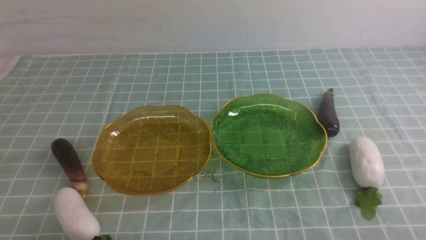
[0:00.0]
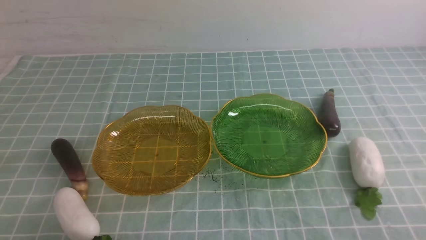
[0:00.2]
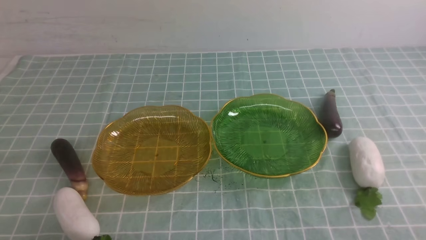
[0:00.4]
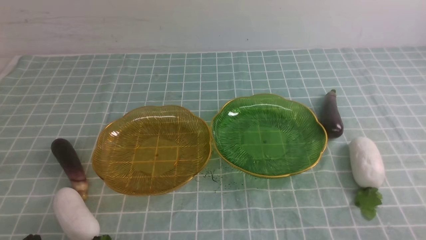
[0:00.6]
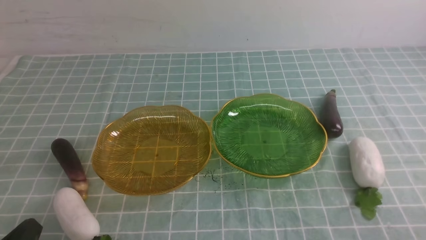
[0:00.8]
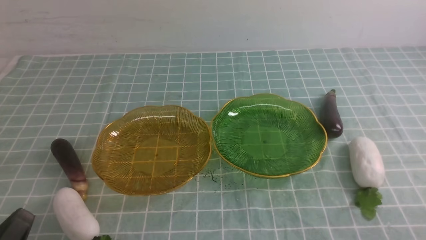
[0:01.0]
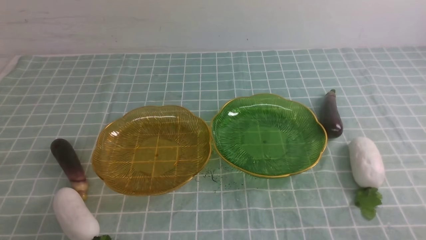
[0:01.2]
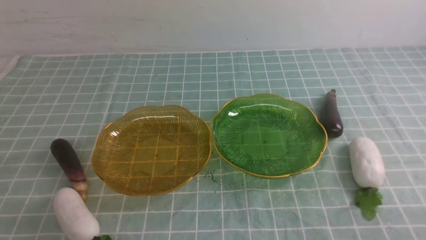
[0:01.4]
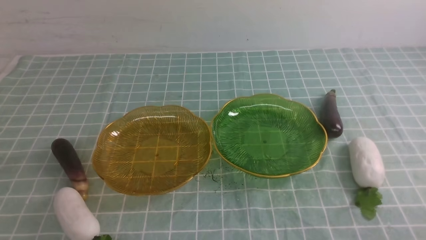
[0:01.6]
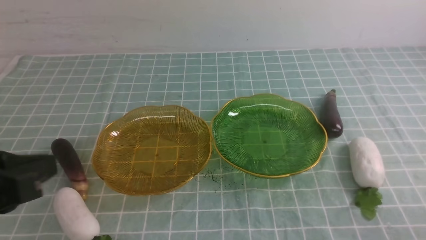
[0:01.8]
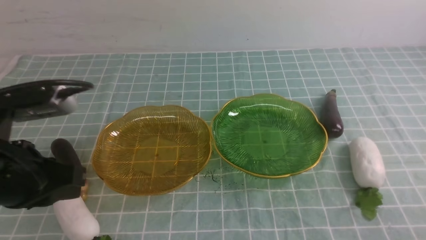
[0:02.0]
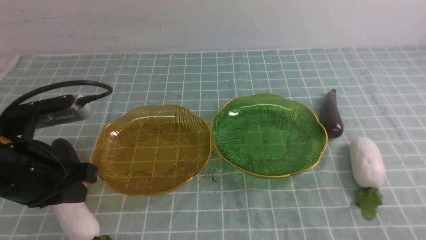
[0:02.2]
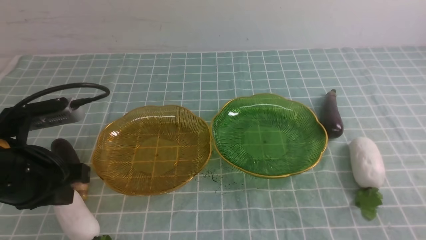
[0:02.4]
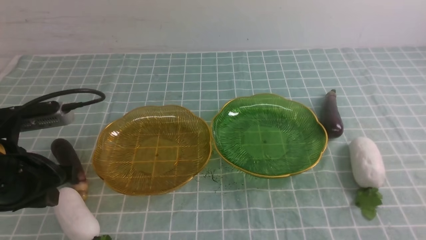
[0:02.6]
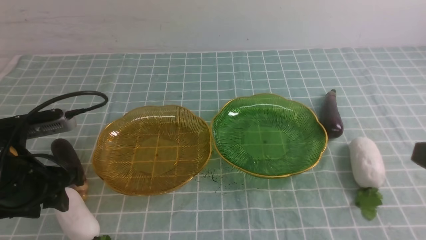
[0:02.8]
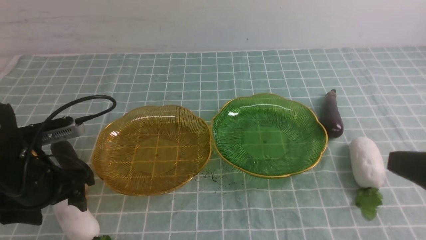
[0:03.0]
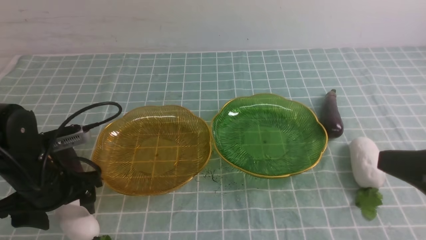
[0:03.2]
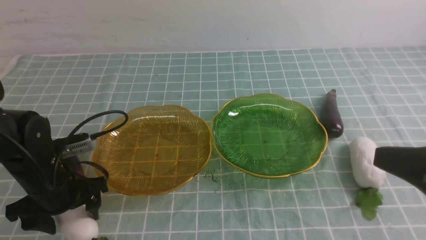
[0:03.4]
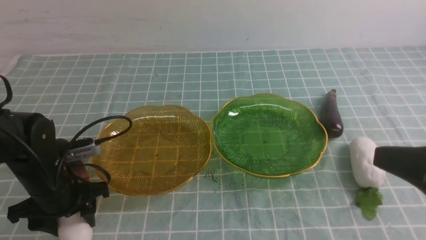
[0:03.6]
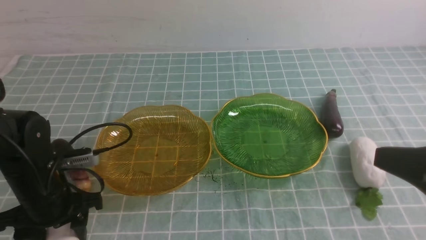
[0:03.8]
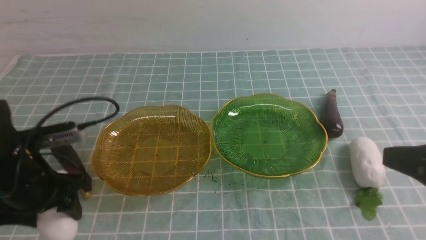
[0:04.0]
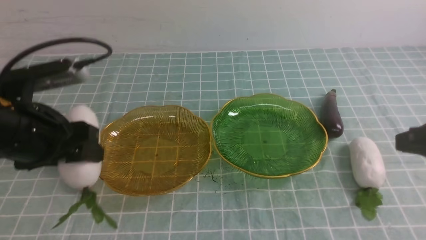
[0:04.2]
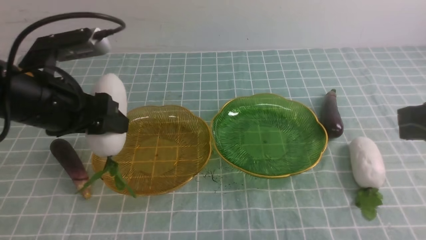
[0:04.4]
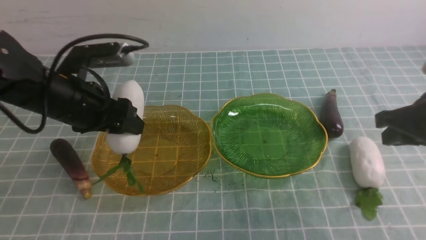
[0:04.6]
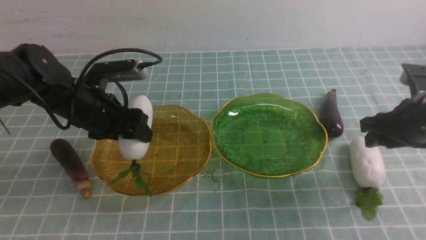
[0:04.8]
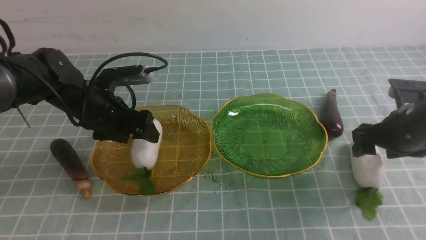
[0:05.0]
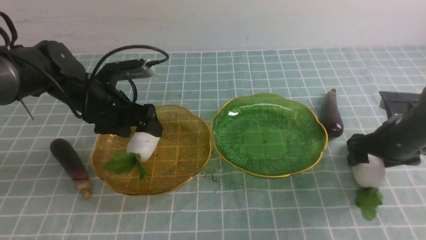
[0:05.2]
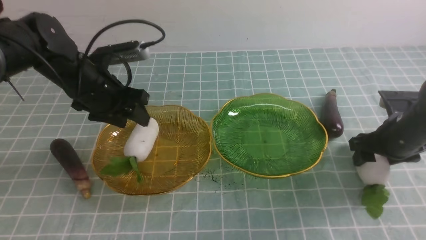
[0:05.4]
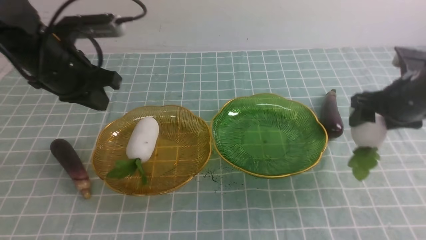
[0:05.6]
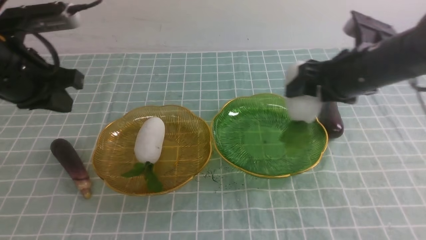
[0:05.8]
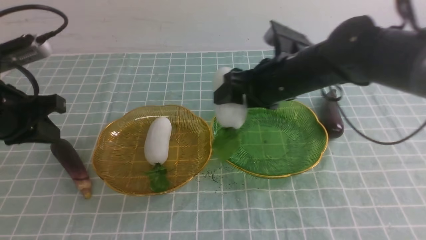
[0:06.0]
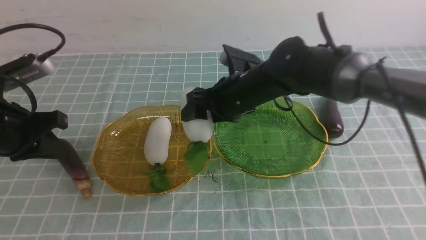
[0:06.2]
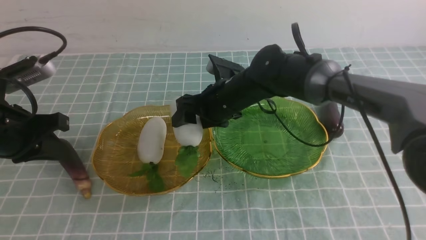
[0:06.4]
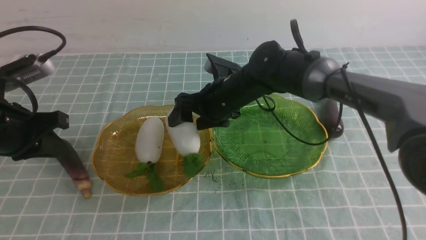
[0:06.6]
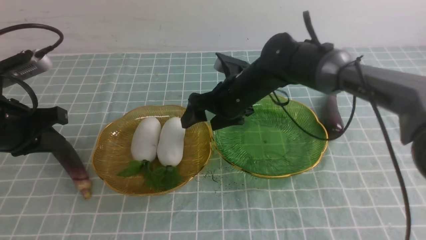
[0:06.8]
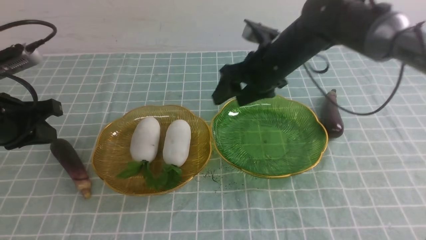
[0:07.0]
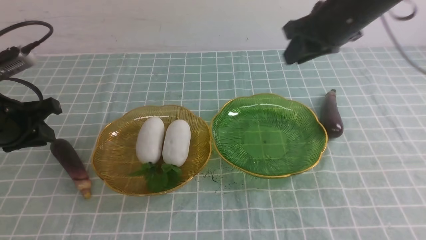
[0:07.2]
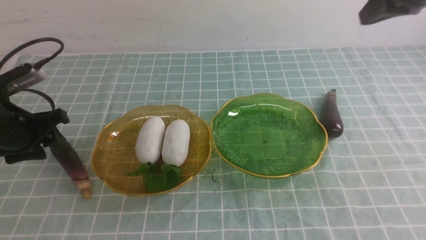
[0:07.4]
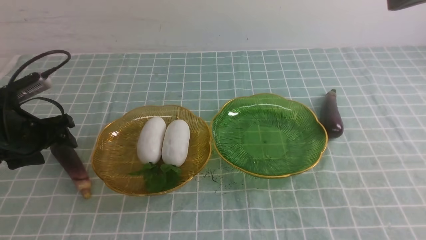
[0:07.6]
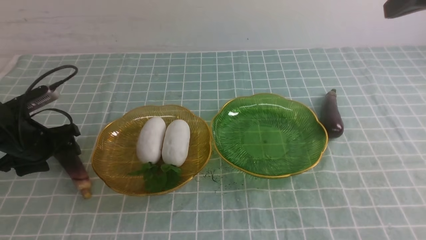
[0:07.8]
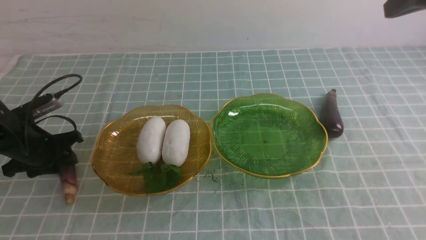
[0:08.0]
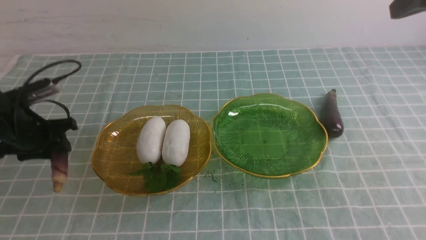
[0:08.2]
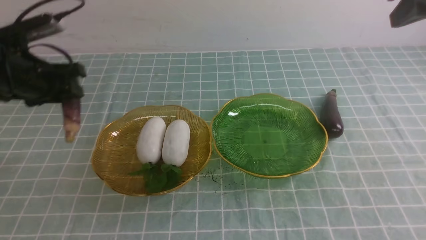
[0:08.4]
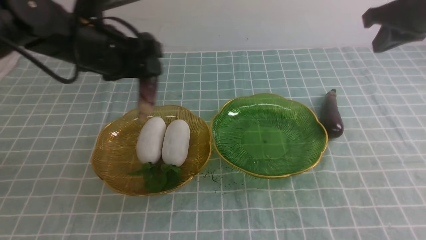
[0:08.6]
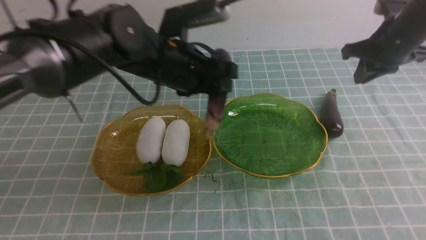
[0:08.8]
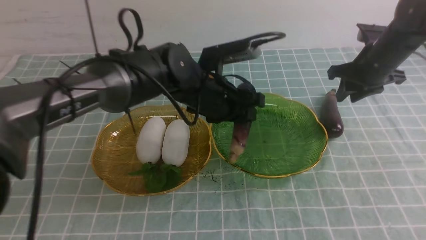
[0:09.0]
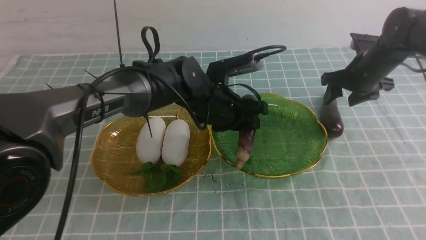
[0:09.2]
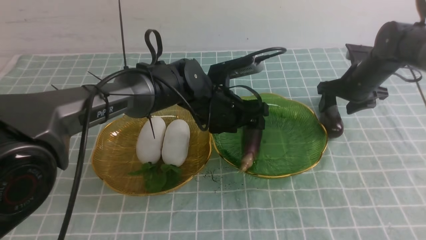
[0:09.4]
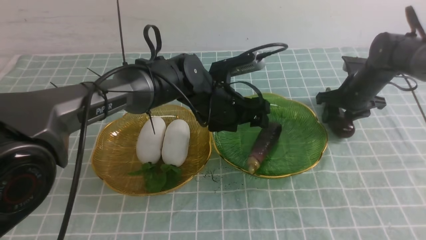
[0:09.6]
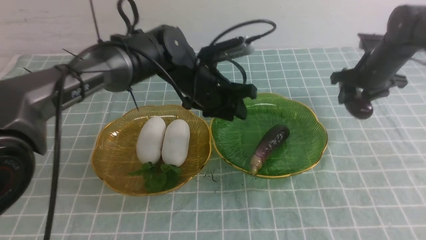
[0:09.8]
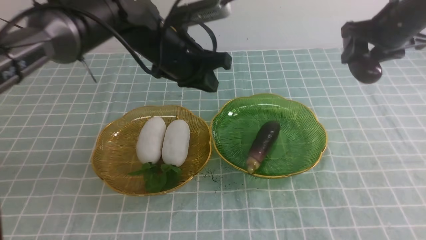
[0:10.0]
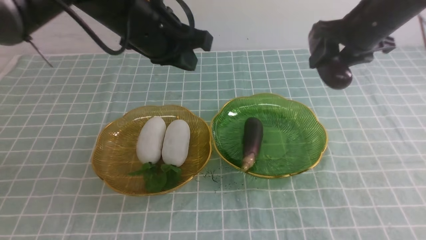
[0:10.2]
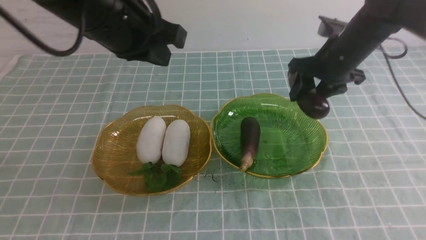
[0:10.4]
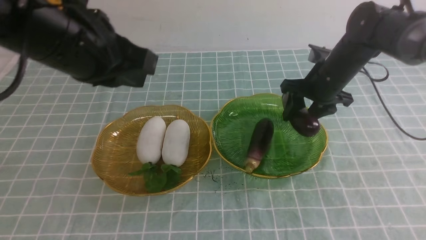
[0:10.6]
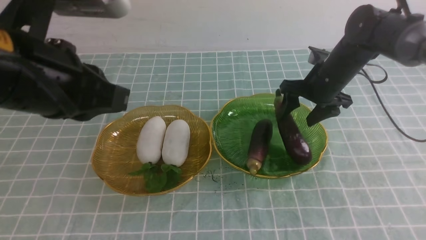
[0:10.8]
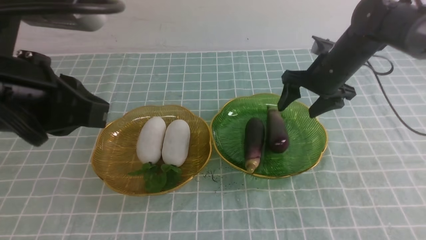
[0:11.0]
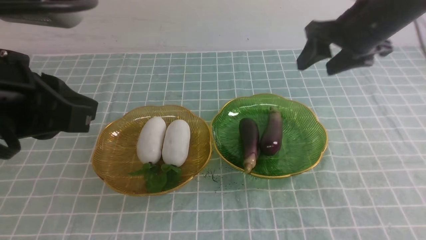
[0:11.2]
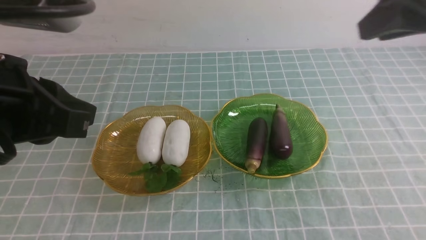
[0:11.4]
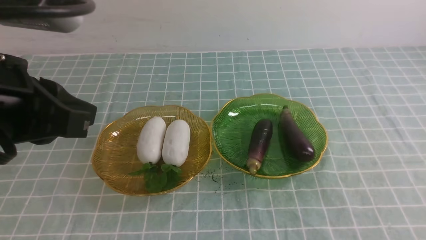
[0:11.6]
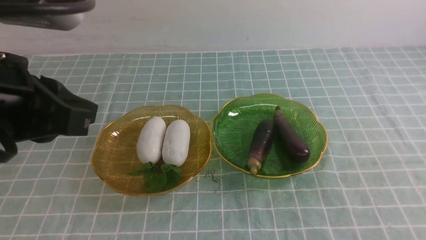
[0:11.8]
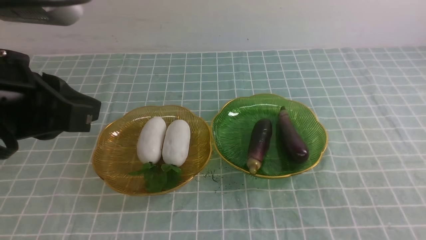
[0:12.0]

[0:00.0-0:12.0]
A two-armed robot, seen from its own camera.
Step, 0:00.0 to 0:04.8: use the left arm to grab a radish and put it into the left plate.
Step, 0:05.0 to 0:06.6: use the right arm to grab a radish and put it into the left plate.
Step, 0:06.8 to 0:09.2: use the left arm to grab an eggplant and put it into the right plate.
Step, 0:09.4 to 0:10.8: use the right arm to grab an eggplant and put it into the right plate.
0:01.6 to 0:03.0: The right gripper is displaced upward and forward by some 15 cm. Meanwhile the left gripper is displaced forward and downward by roughly 20 cm, and opens.
0:03.0 to 0:04.4: The left gripper travels upward by about 10 cm, while the right gripper moves forward, roughly 10 cm.
0:04.4 to 0:06.0: The right gripper heads to the left and forward, covering approximately 25 cm, and opens up. The left gripper is displaced to the left by approximately 5 cm, travels downward and back again, about 10 cm each way, and closes its fingers.
0:06.0 to 0:07.6: The left gripper heads downward and forward, covering approximately 10 cm, and opens; the right gripper travels to the right and upward by approximately 25 cm, and closes its fingers.
0:07.6 to 0:09.0: The left gripper is displaced to the right by approximately 30 cm, and closes. Meanwhile the right gripper goes some 25 cm downward and forward, and opens.
0:09.0 to 0:10.4: The right gripper moves up and down over about 15 cm, changing direction 2 times. Meanwhile the left gripper is displaced upward, to the left and backward by about 20 cm, and closes.
0:10.4 to 0:12.0: The right gripper shifts about 40 cm backward, and closes, while the left gripper shifts approximately 15 cm backward and to the left.

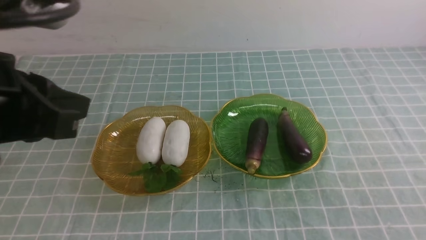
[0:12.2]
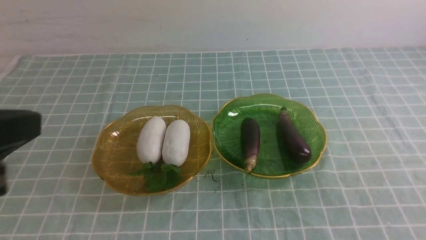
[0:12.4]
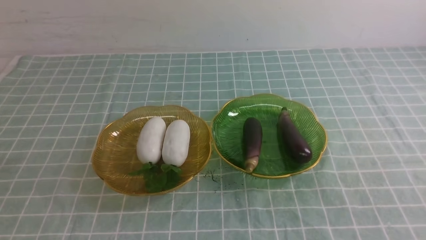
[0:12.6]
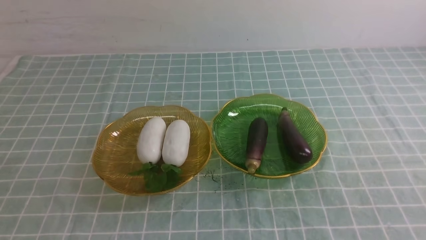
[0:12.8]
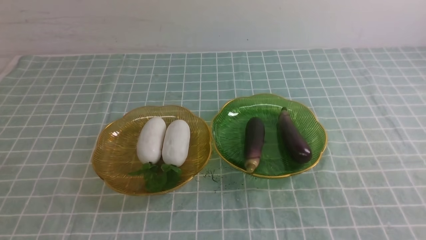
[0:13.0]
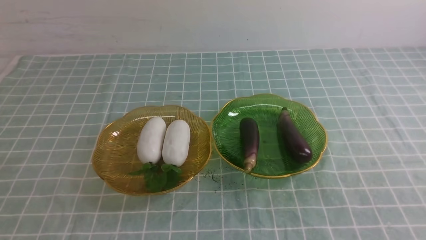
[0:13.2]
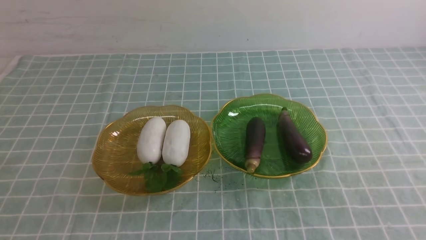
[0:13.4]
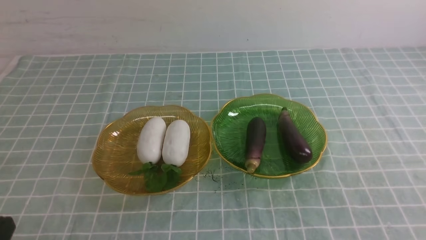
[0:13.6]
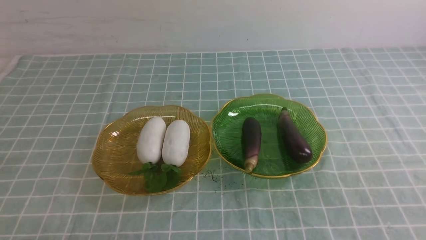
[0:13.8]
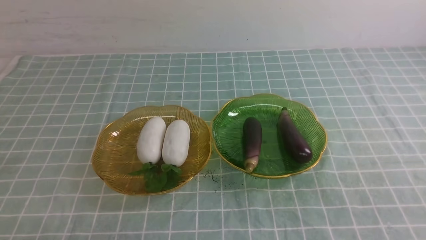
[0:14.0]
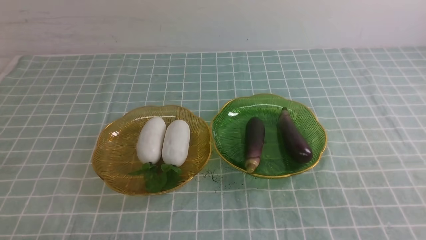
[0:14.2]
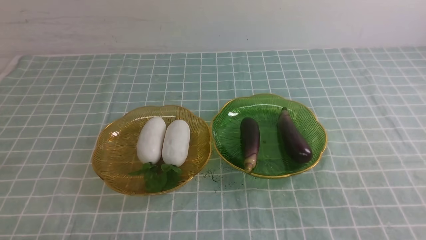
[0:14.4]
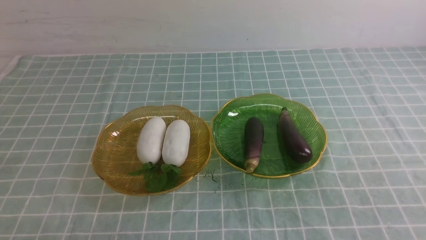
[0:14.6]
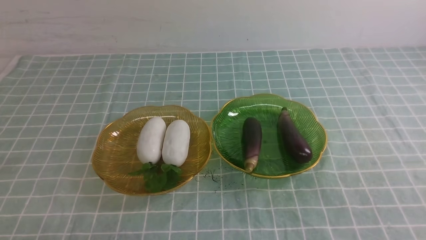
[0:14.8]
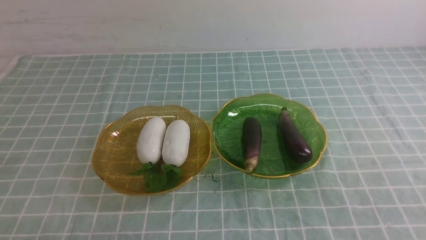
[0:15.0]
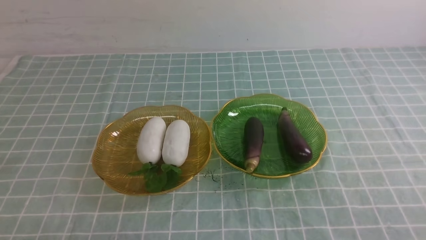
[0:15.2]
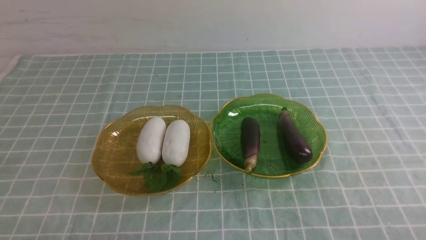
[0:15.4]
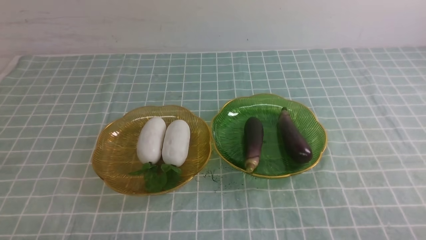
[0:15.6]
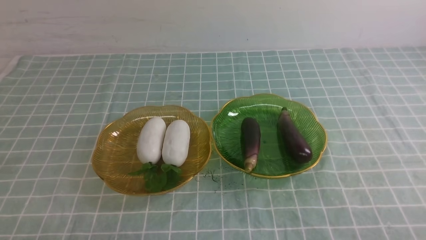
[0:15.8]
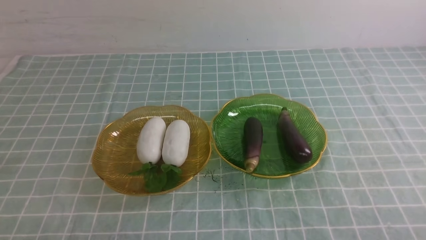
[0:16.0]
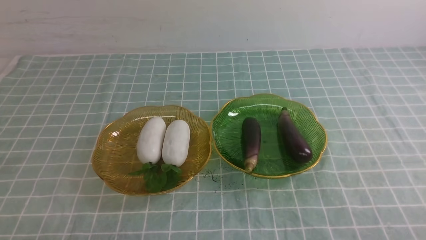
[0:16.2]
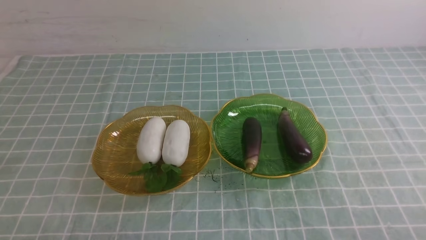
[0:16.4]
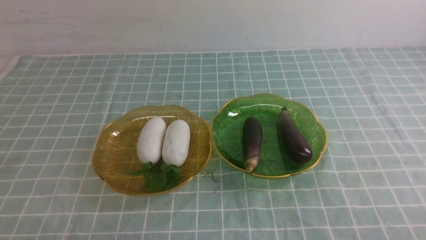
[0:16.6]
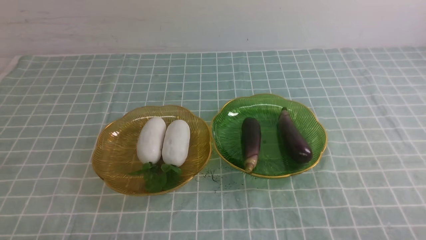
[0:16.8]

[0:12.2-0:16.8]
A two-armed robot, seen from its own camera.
0:12.2 to 0:13.8: The left gripper shifts approximately 25 cm downward.
